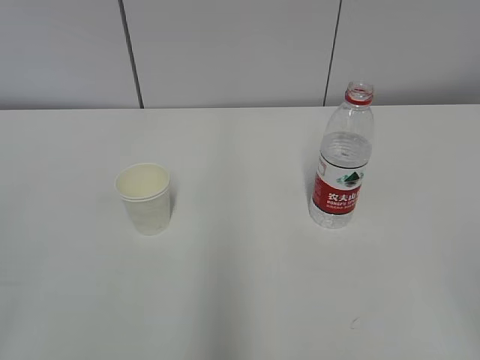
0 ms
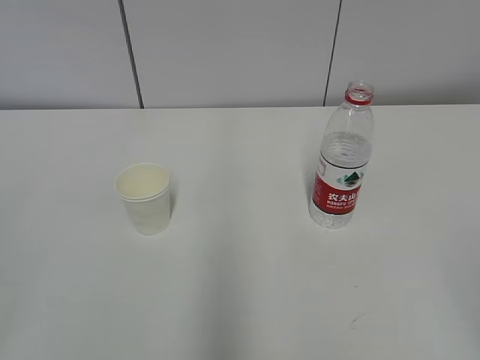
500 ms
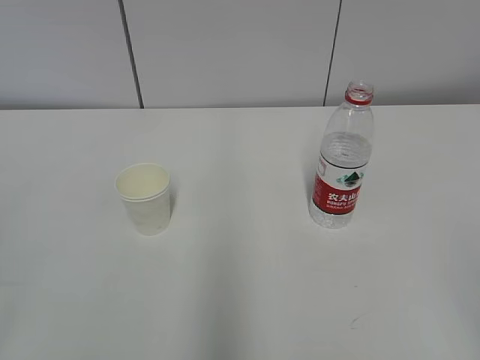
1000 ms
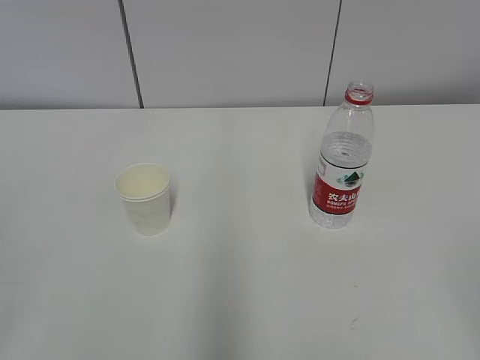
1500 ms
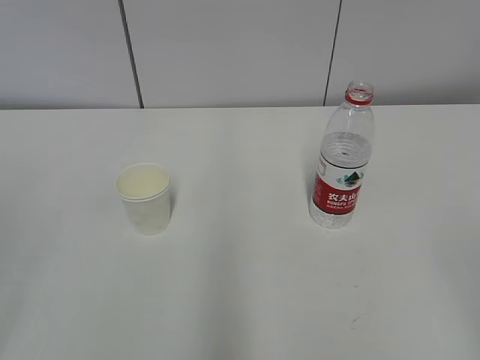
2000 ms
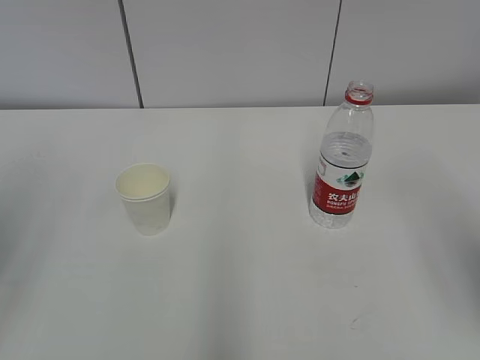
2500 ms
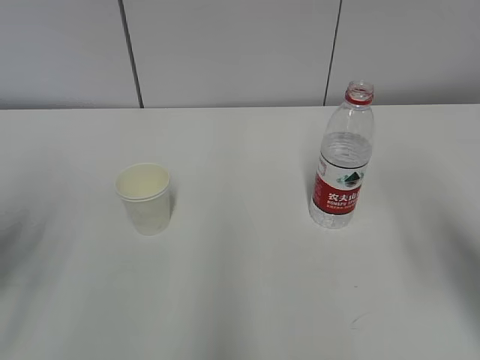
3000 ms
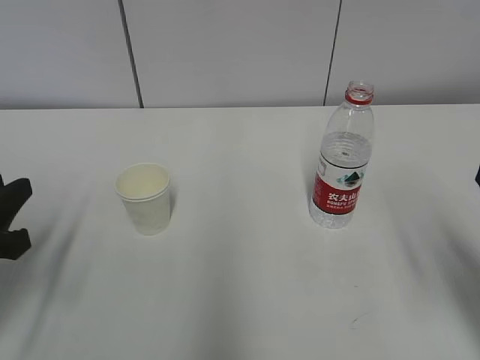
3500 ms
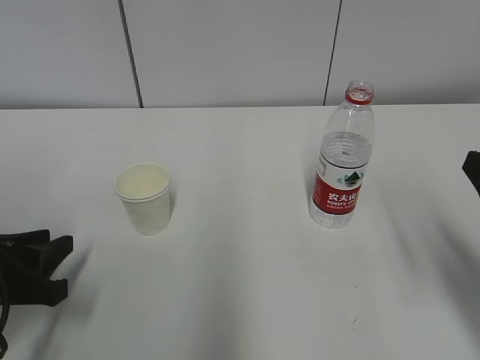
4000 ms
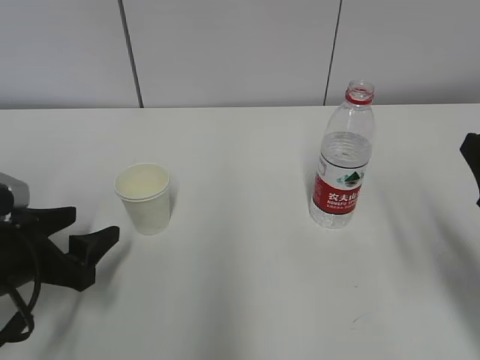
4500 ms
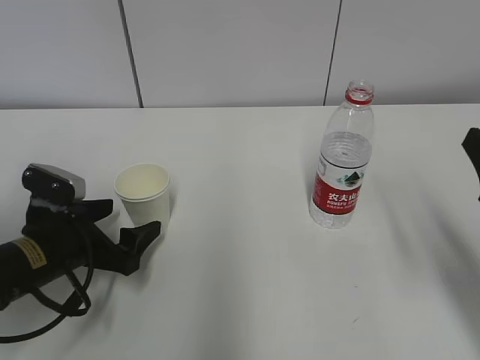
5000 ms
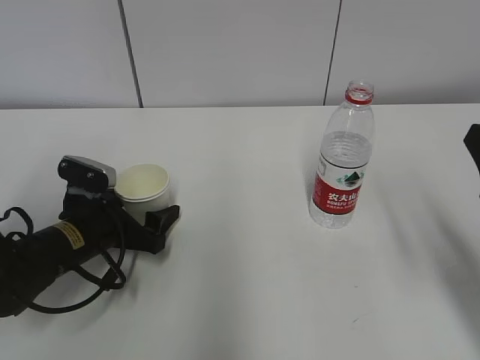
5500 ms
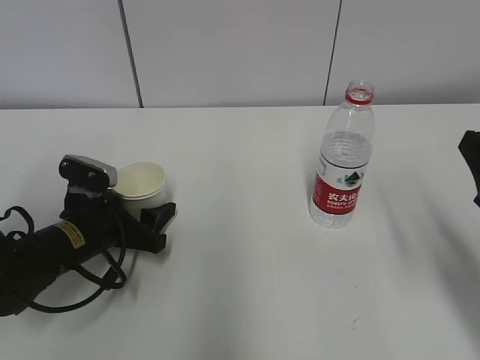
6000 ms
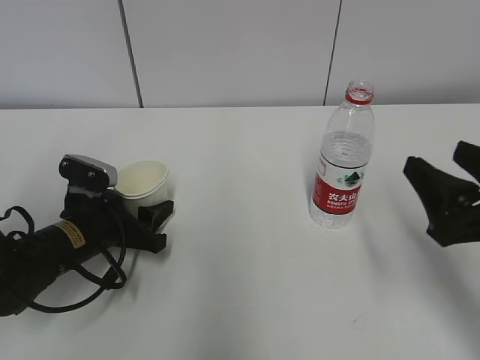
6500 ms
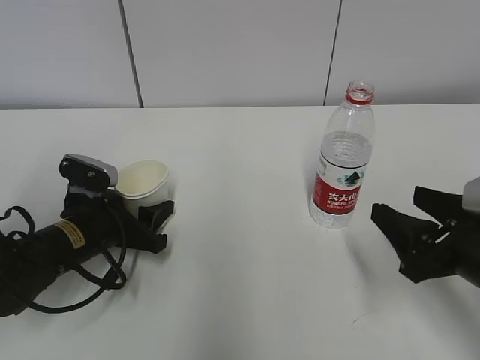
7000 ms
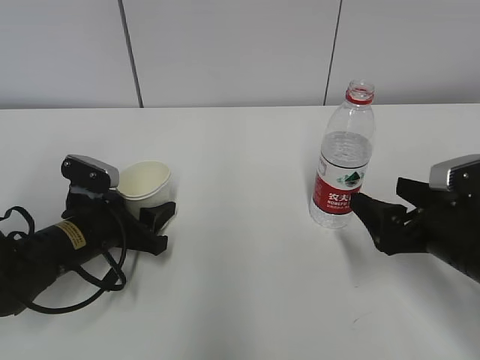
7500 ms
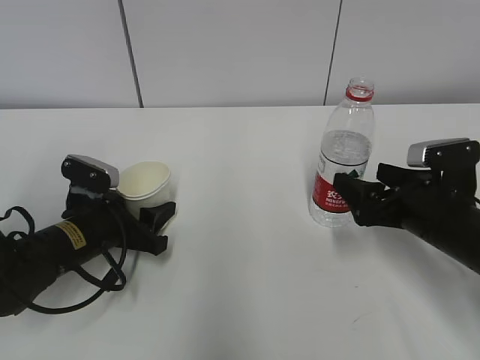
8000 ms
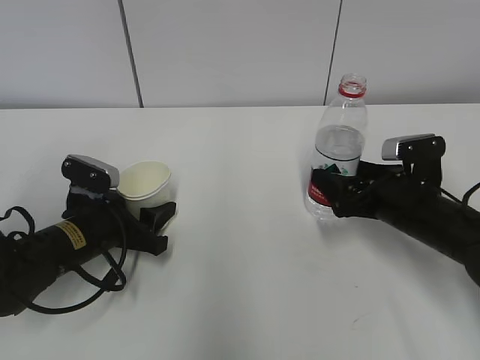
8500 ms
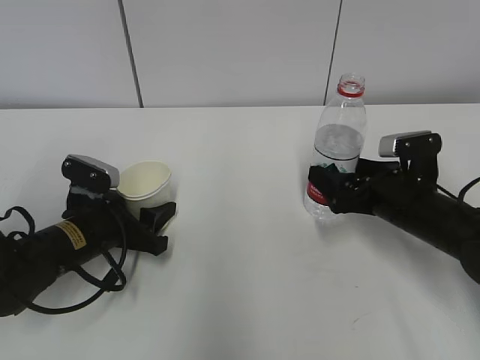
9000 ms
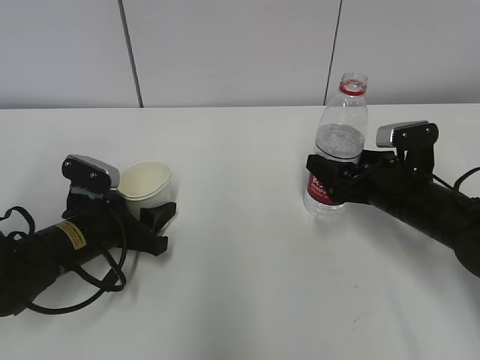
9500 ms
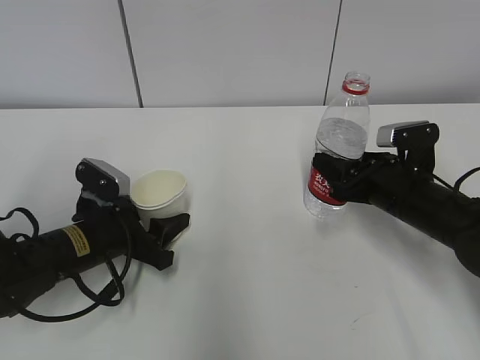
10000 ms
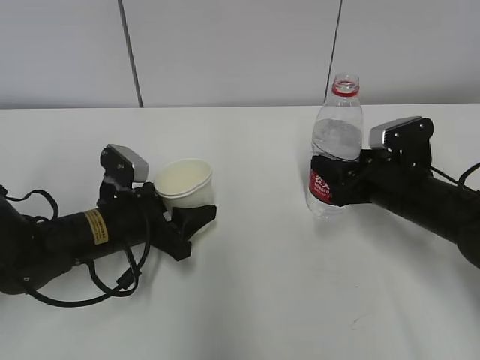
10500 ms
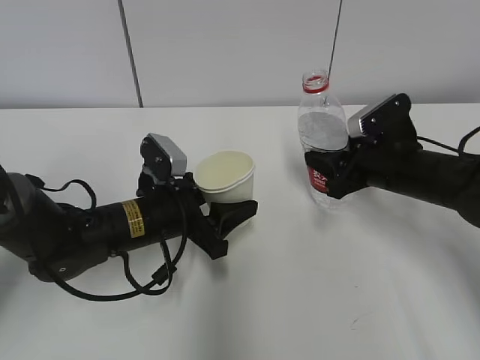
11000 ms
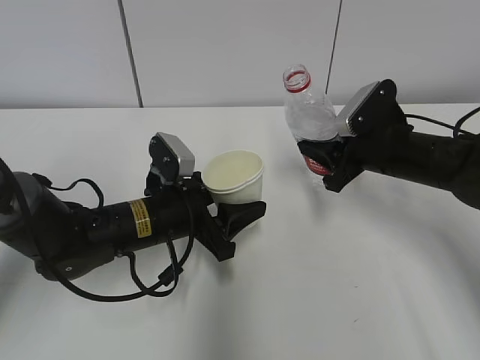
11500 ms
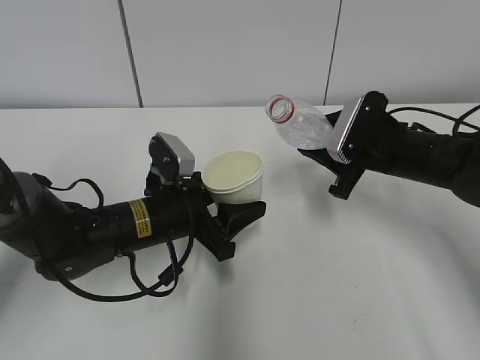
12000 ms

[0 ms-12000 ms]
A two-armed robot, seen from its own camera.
Step, 0 ms to 7500 ms: Grab the paper cup with the left hand.
Step, 8000 ms to 8500 ms: Grab the water bottle with the right hand.
2000 ms to 4000 ms: The right gripper is displaced forward and downward by some 20 cm. Meanwhile the left gripper goes approximately 25 cm downward and forward.
4000 ms to 6000 ms: The left gripper heads forward and to the right, covering roughly 15 cm, and opens.
6000 ms to 8000 ms: The right gripper travels forward and downward by some 15 cm, and opens up.
8000 ms to 10000 ms: The right gripper moves roughly 5 cm, and closes its fingers.
10000 ms to 12000 ms: The right gripper shifts by some 5 cm. The left gripper shifts about 10 cm to the right.

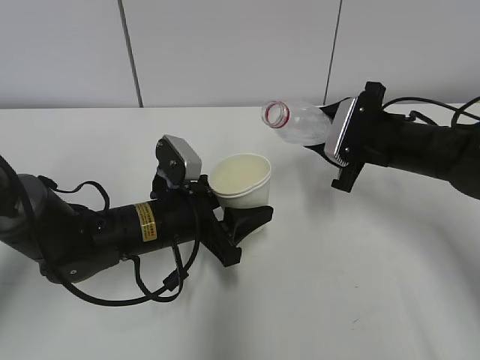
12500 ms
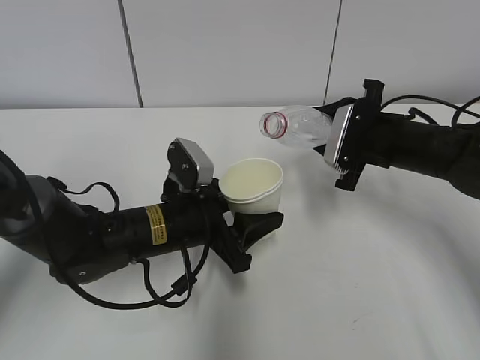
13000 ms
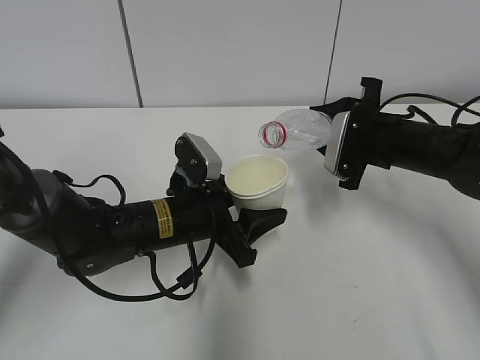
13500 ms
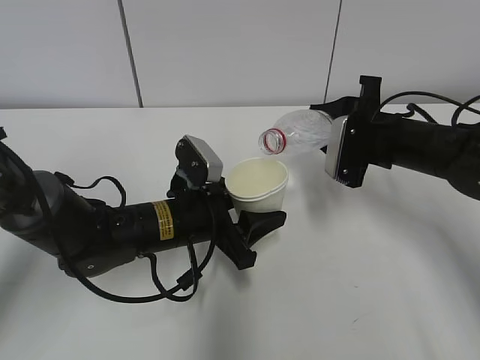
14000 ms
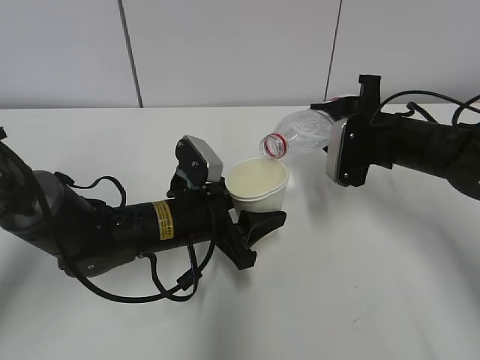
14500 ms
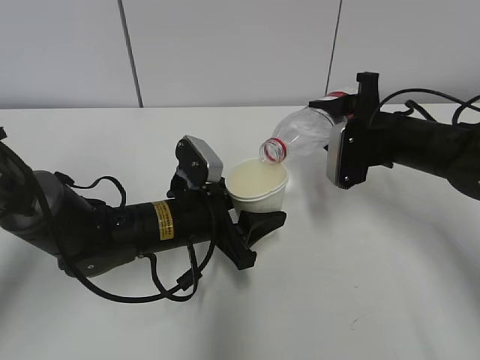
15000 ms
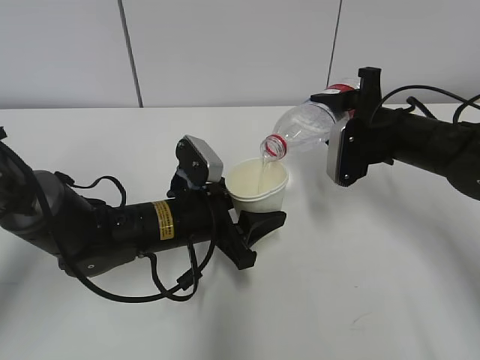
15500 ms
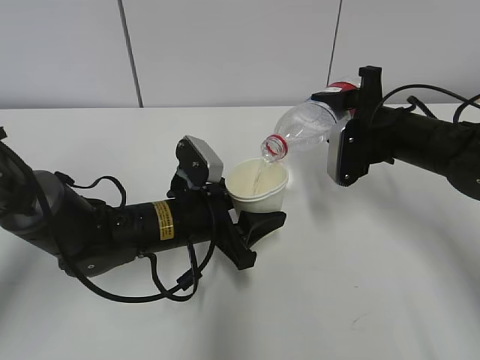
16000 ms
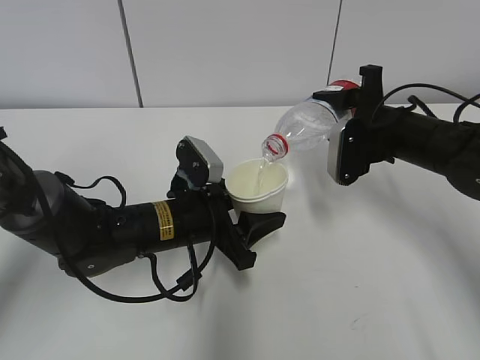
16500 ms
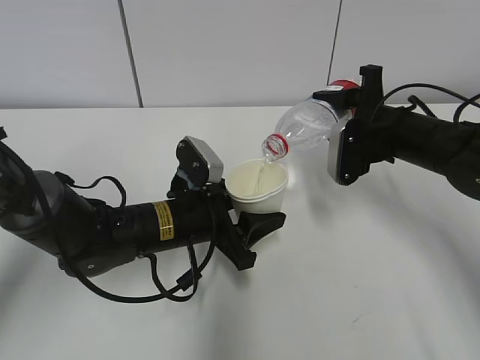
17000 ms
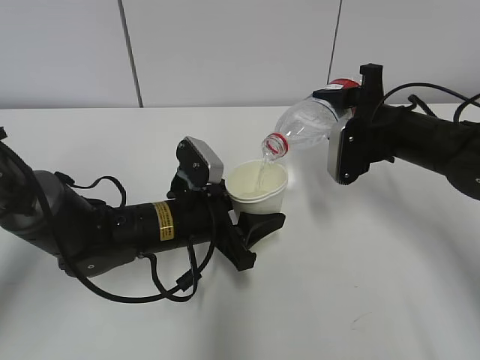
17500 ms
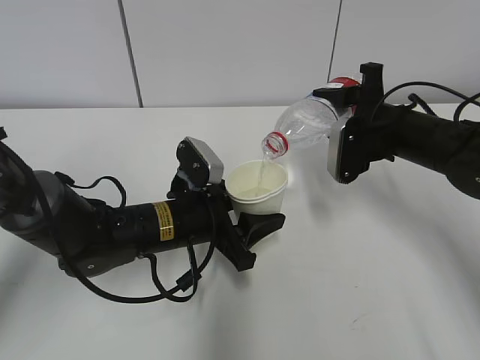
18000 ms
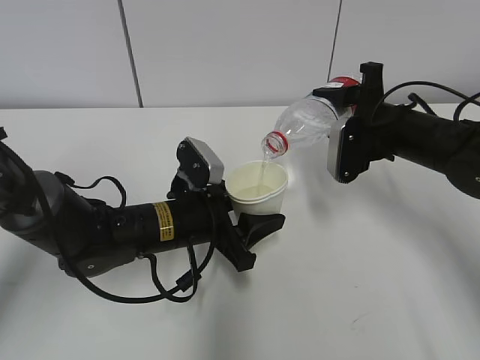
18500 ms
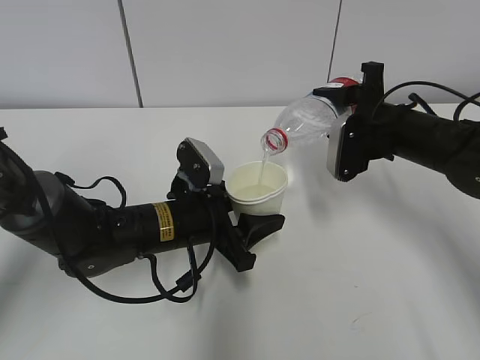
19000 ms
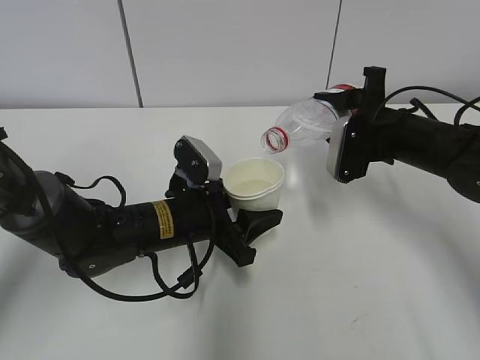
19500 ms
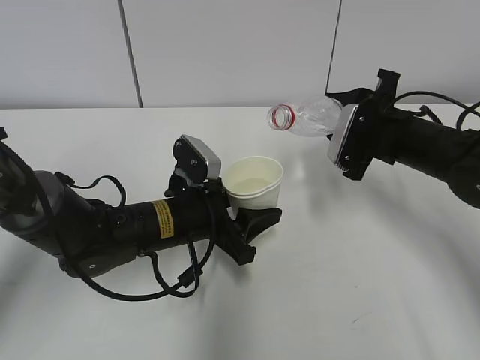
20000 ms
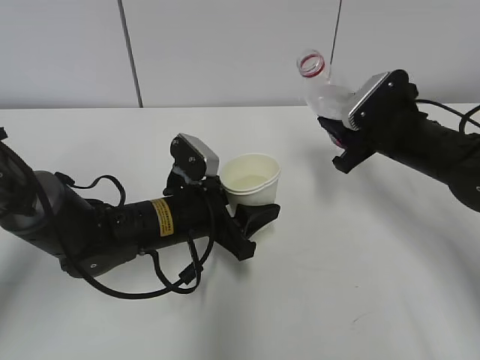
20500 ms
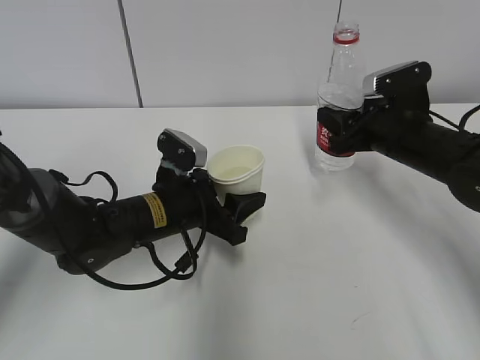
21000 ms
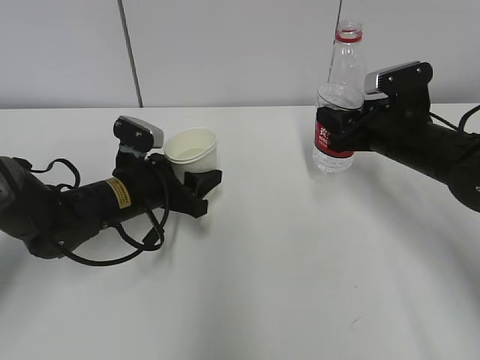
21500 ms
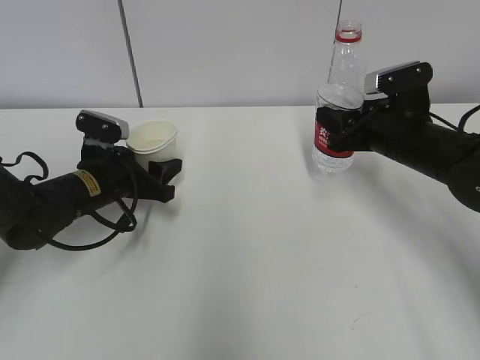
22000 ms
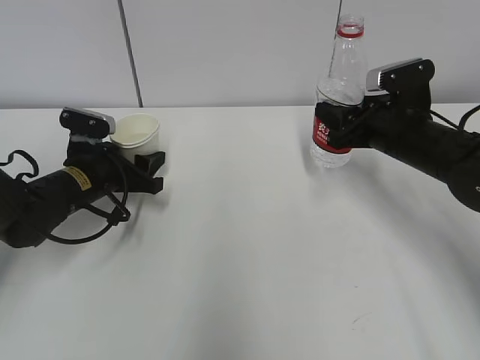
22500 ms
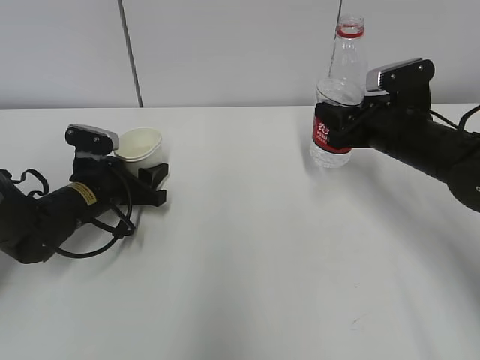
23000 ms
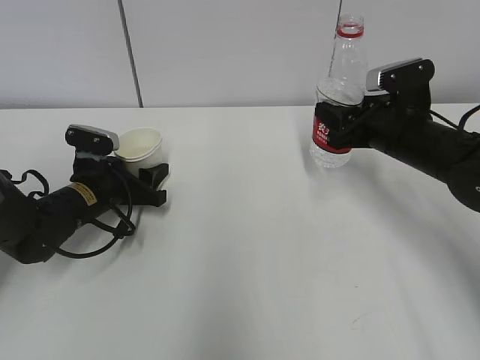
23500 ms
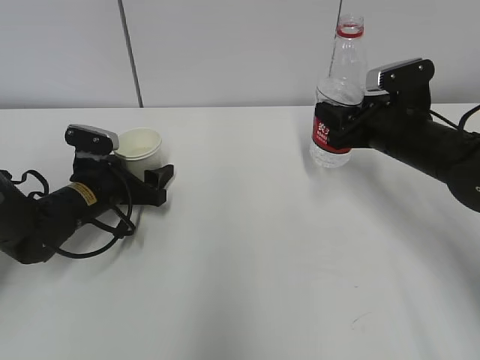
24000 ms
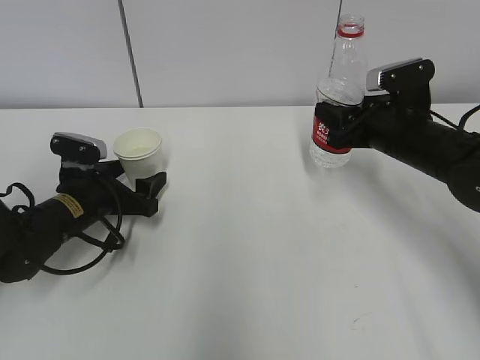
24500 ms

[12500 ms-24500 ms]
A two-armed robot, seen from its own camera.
Step, 13000 ms to 16000 ms: Fill water with the left hand.
Step, 13000 ms to 16000 ms: Pour water with the right hand.
Step, 18000 ms to 19500 ms: Place the paper cup with the left hand.
14500 ms to 16500 ms: There are only small adjustments of the grippers.
16500 ms to 18500 ms: Both grippers stay put.
20500 ms to 22500 ms: The left gripper travels to the left and forward by about 15 cm.
22500 ms to 24500 ms: The left gripper opens its fingers.

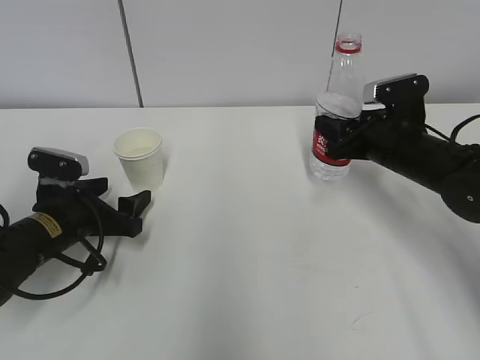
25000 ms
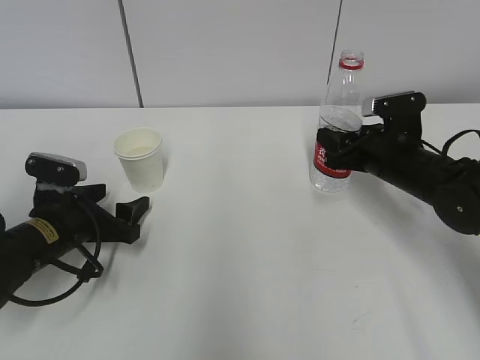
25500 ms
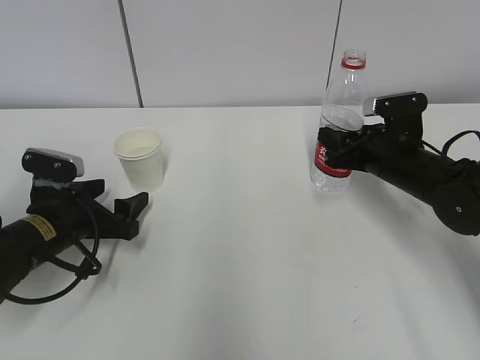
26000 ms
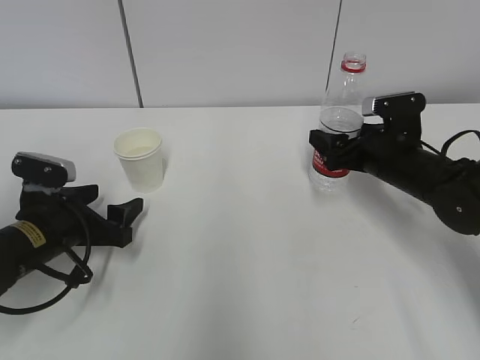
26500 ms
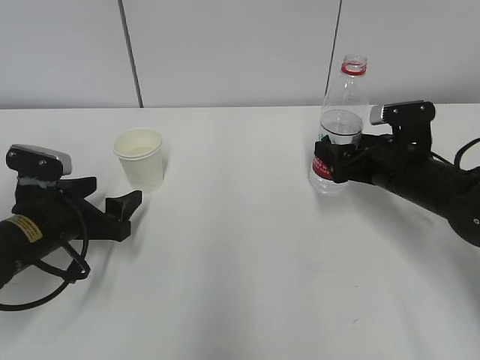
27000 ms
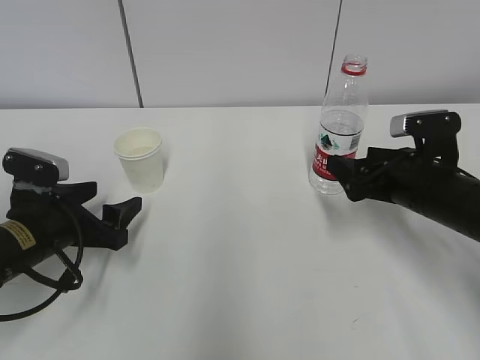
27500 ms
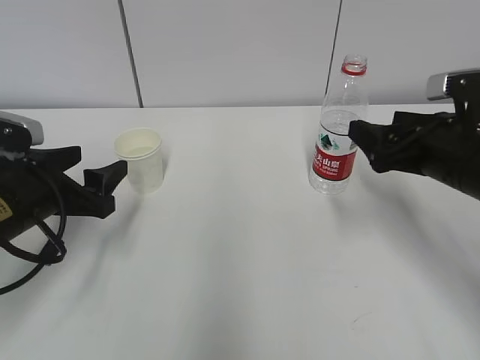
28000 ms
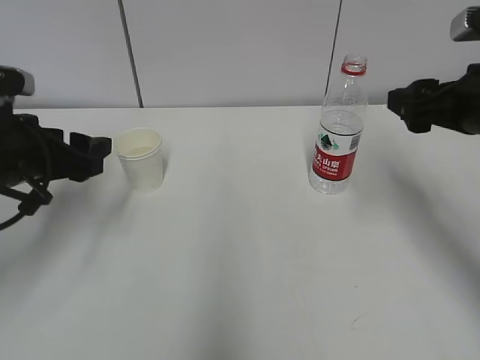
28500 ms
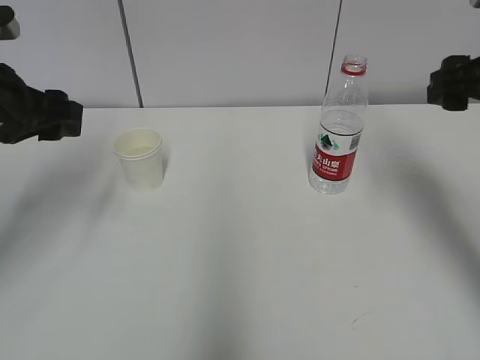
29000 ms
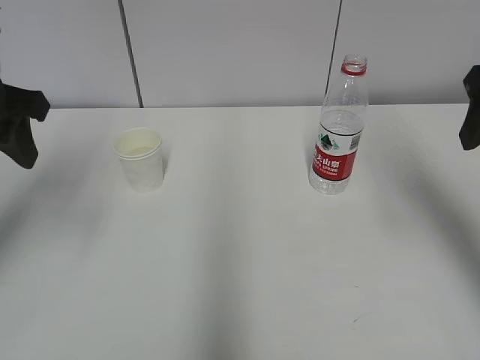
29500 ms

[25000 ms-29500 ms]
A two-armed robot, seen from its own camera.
25000 ms to 27000 ms: The right gripper opens up.
27000 ms to 29500 ms: The right gripper moves upward and backward, some 25 cm. The left gripper goes roughly 20 cm upward, and closes.
